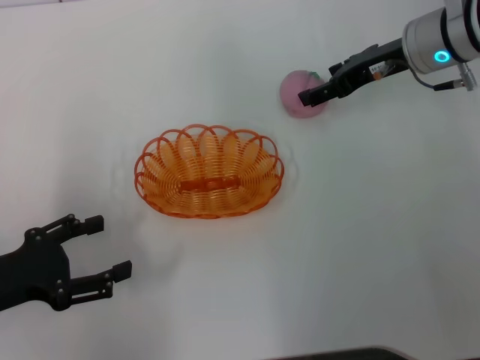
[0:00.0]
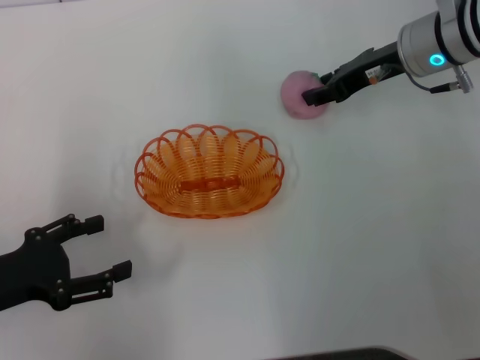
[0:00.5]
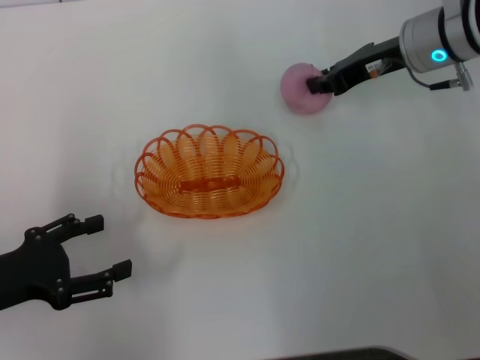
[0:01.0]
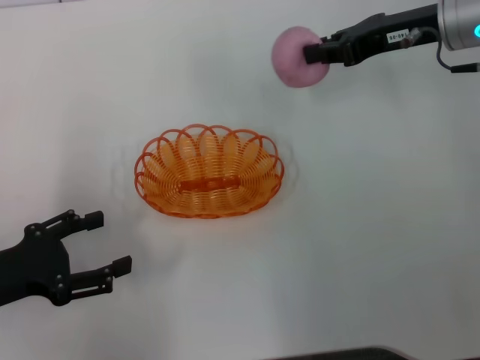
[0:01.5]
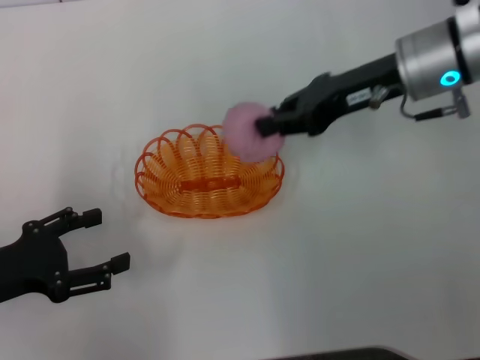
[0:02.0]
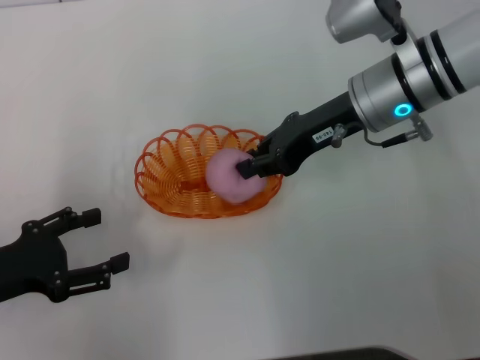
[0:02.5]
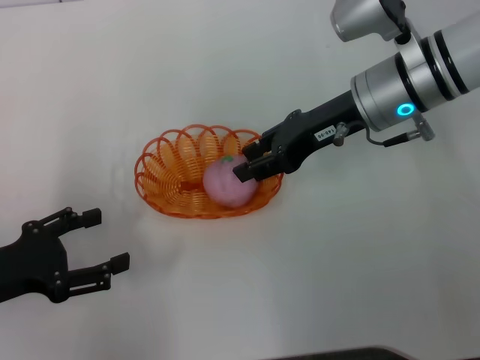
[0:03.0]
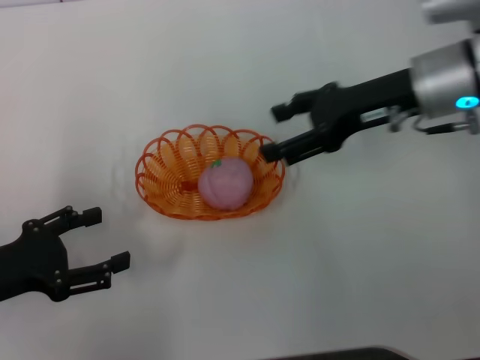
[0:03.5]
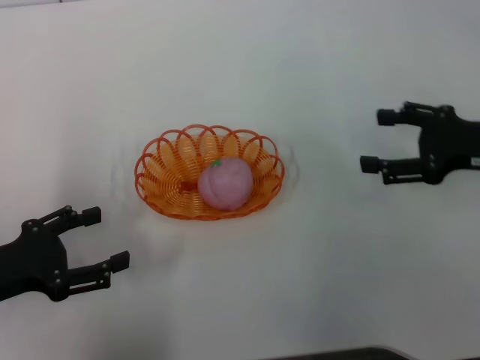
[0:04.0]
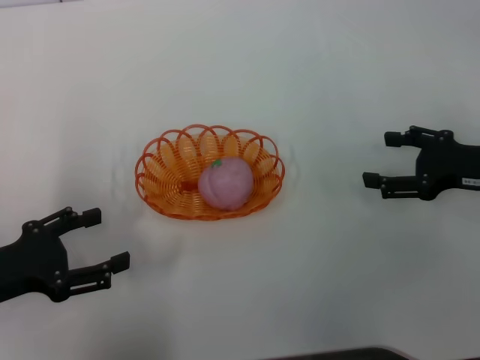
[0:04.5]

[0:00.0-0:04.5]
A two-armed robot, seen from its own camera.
Step, 0:02.0 to 0:03.5: Place the peach into the basket with the right gripper.
0:00.0 to 0:02.0: The right gripper ends up approximately 5 cm from where it was, and closes up.
0:02.0 to 0:04.5: The right gripper shifts about 20 cm to the right, backward and downward, and opens up.

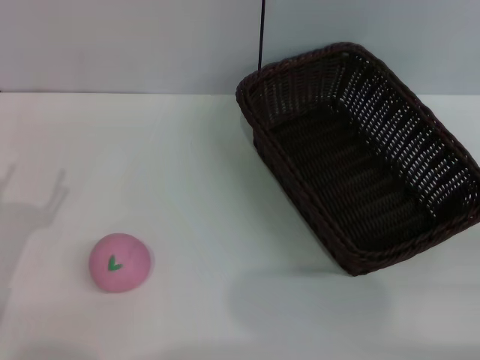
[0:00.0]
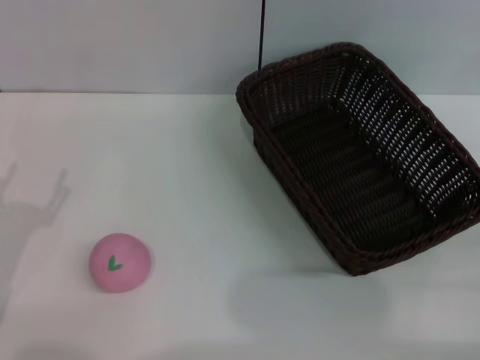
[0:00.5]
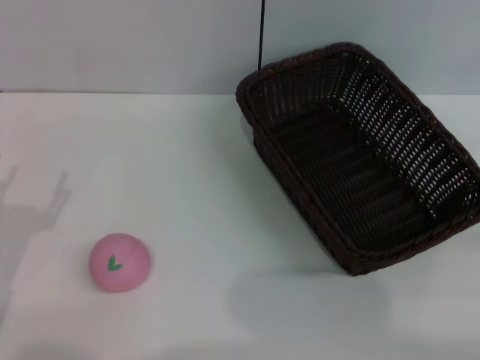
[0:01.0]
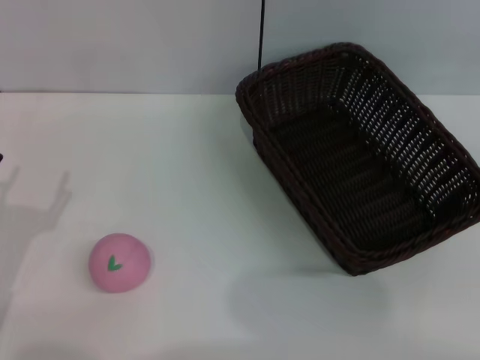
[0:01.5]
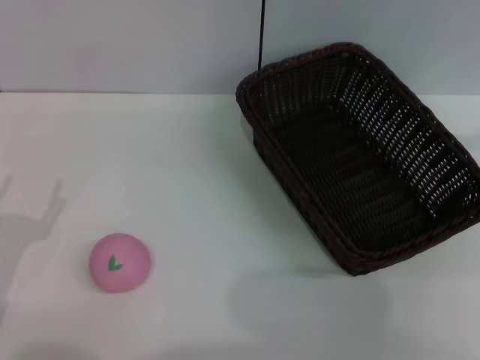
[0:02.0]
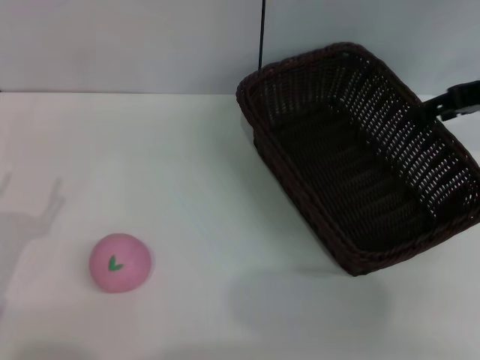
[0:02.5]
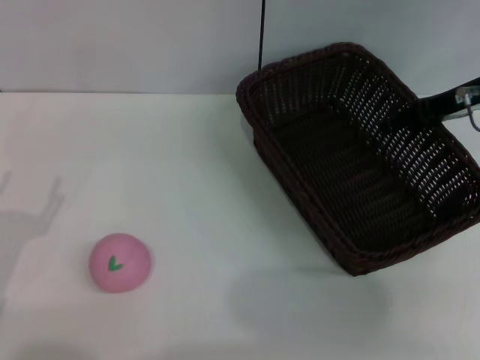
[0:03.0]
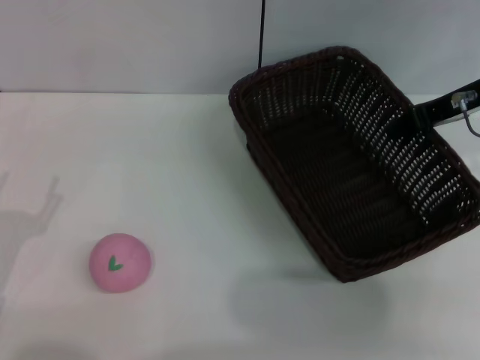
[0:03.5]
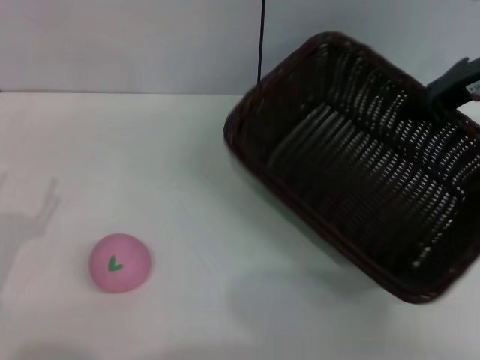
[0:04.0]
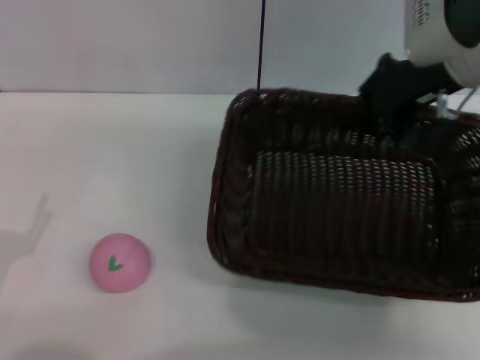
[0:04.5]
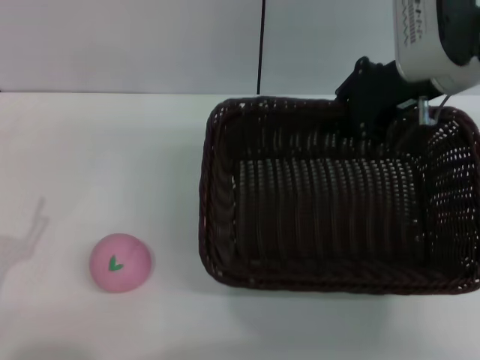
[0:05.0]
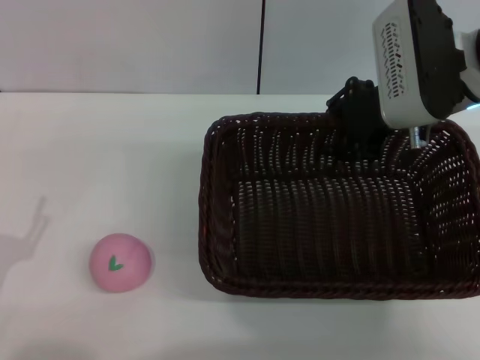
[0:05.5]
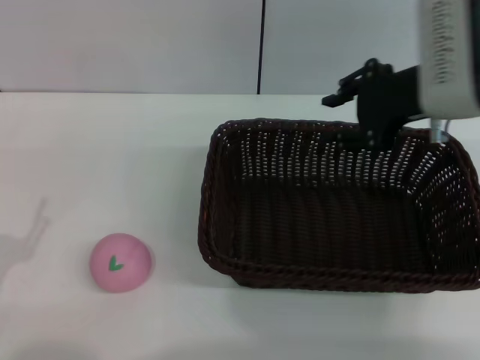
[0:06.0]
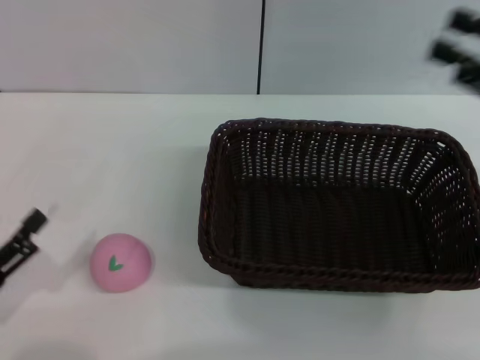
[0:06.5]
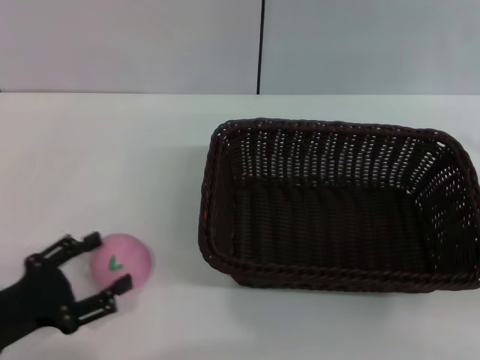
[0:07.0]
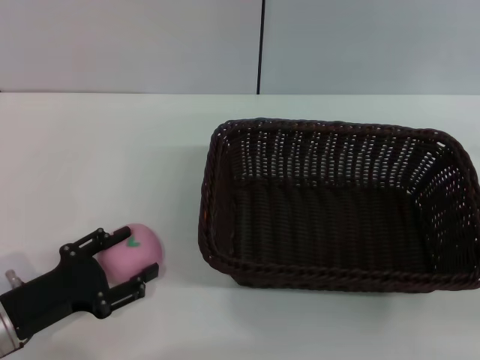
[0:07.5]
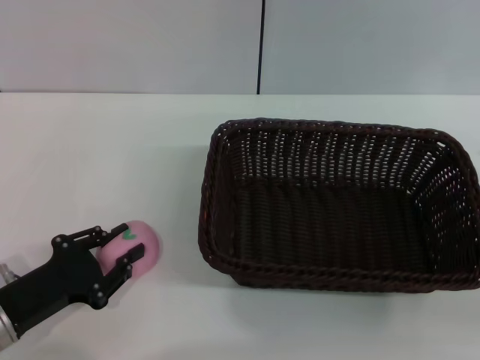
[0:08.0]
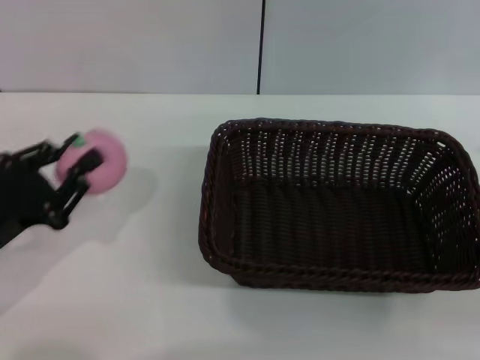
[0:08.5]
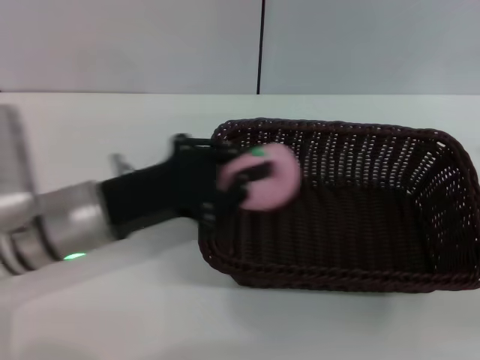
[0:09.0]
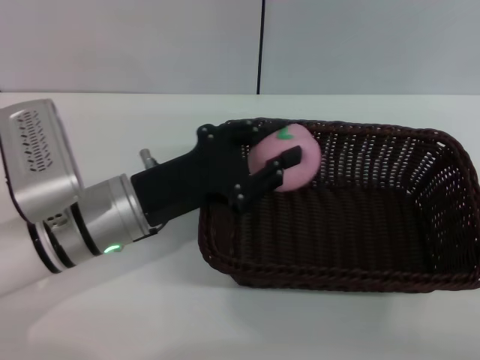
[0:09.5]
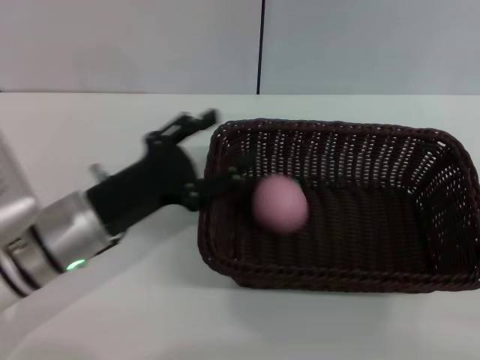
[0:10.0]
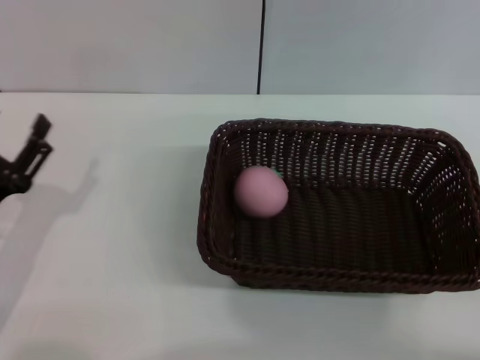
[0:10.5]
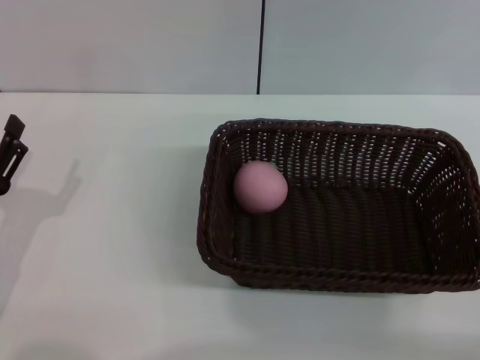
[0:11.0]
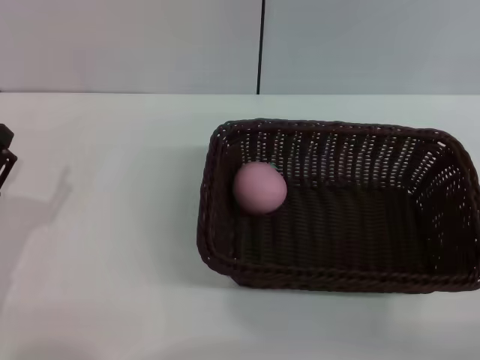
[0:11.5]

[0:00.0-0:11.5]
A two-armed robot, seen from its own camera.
Step, 0:00.0 to 0:03.5: Pick up the dark basket with the right gripper.
Step, 0:04.0 to 0:06.0: Place the dark basket in the center of view with the right gripper.
Step, 0:06.5 to 0:08.0: Pick up the peach with the left gripper.
Step, 0:08.5 to 0:09.5: Place the peach into the basket with the left gripper.
0:02.0 to 0:04.0: The right gripper shifts roughly 15 cm to the left, and closes.
0:04.0 to 0:06.0: The right gripper is displaced to the left by about 5 cm, and opens up.
0:06.0 to 0:07.5: The left gripper travels forward by approximately 5 cm, while the right gripper shifts some 25 cm to the right, backward and downward.
0:07.5 to 0:09.5: The right gripper shifts by some 5 cm; the left gripper goes roughly 15 cm to the right, forward and upward, and closes its fingers.
0:09.5 to 0:11.5: The right gripper moves downward, roughly 5 cm. Meanwhile the left gripper moves to the left and backward, approximately 15 cm, and opens.
